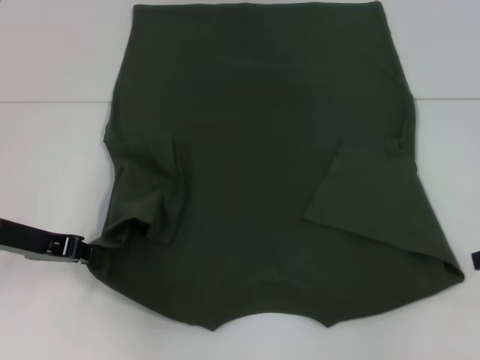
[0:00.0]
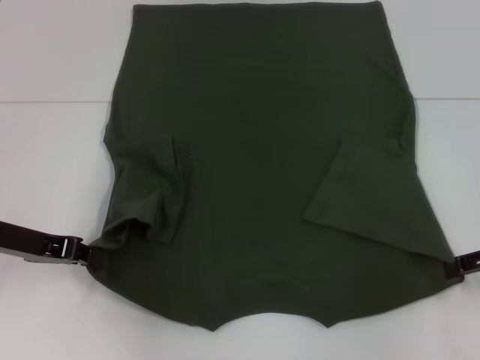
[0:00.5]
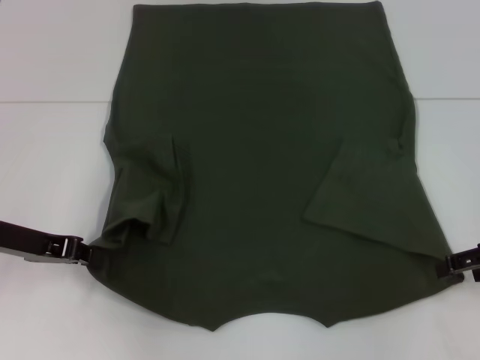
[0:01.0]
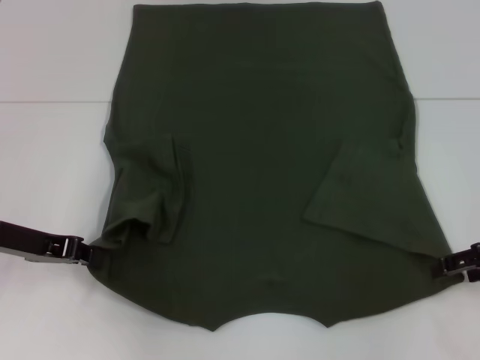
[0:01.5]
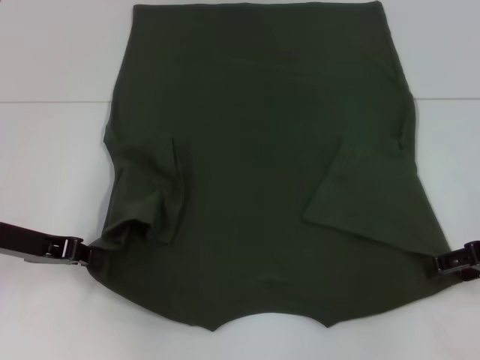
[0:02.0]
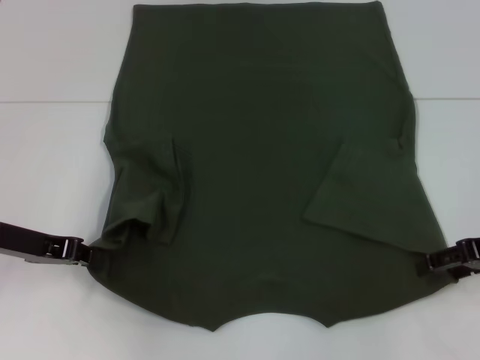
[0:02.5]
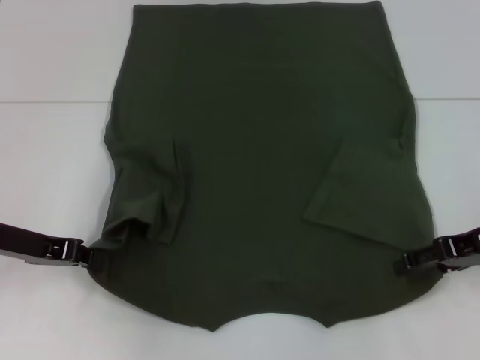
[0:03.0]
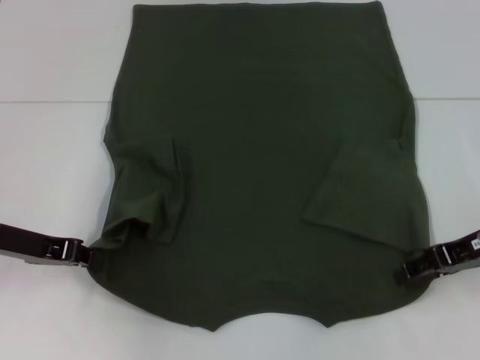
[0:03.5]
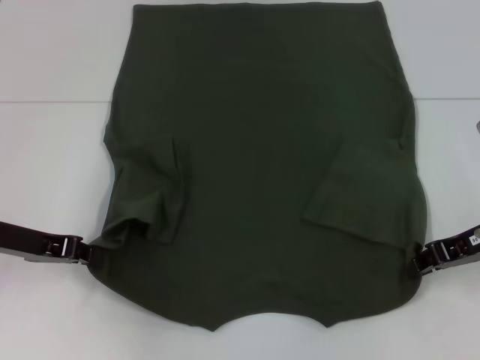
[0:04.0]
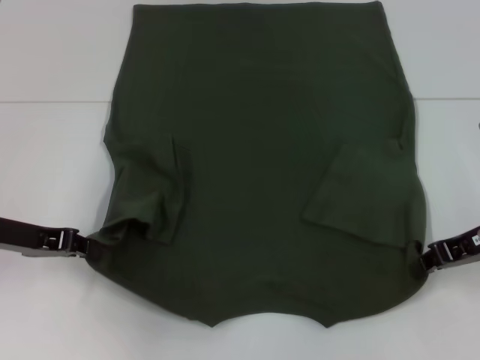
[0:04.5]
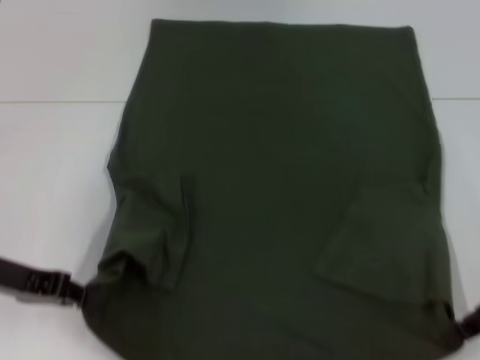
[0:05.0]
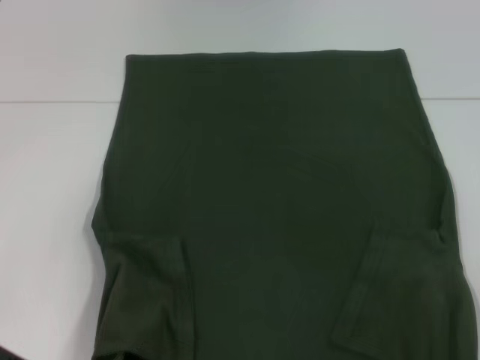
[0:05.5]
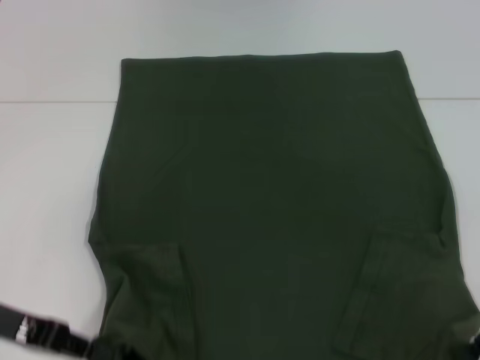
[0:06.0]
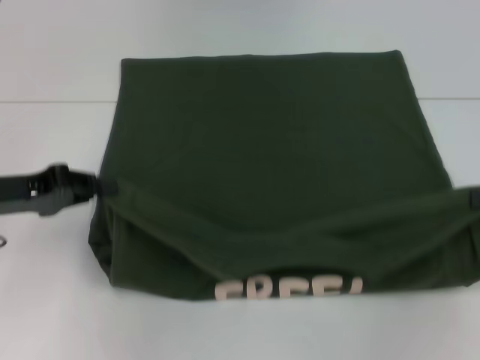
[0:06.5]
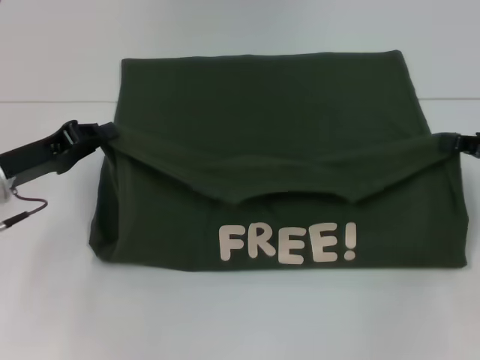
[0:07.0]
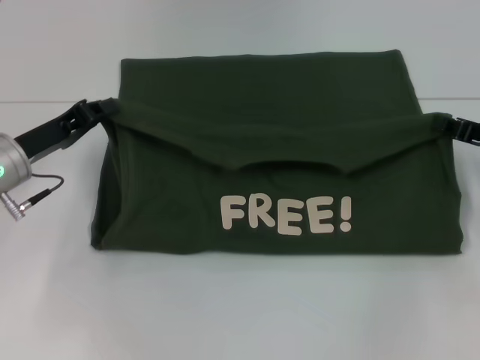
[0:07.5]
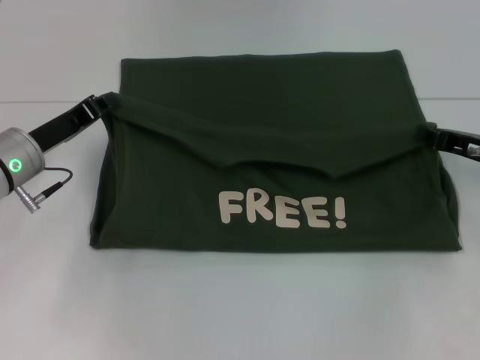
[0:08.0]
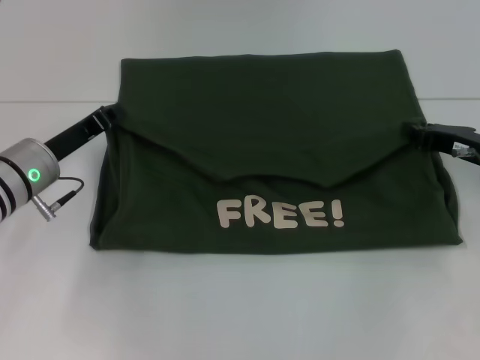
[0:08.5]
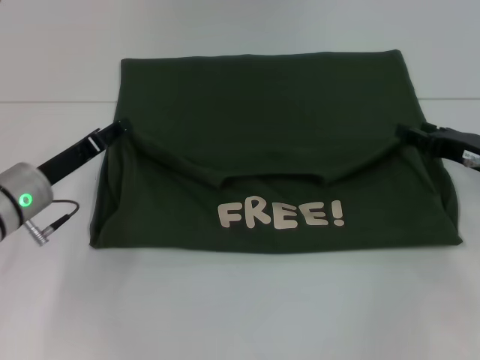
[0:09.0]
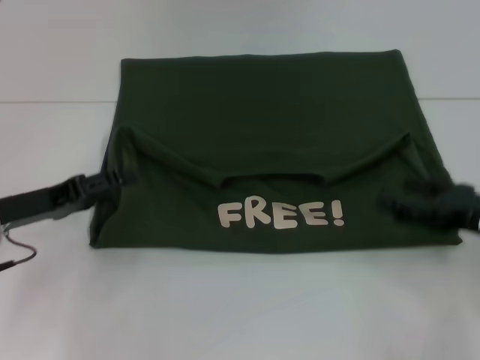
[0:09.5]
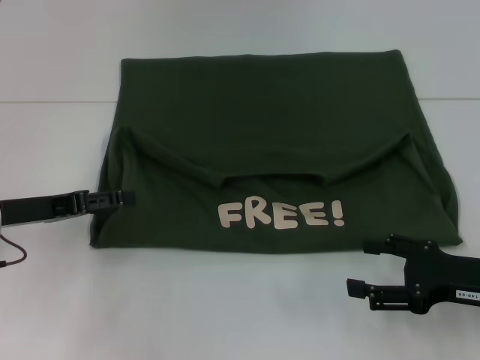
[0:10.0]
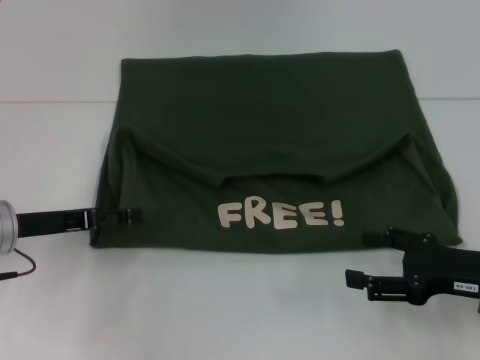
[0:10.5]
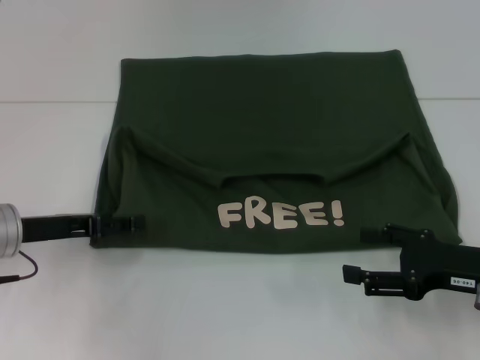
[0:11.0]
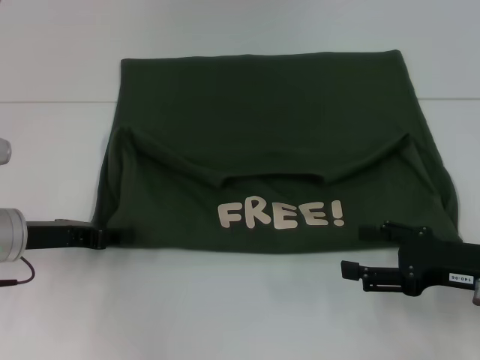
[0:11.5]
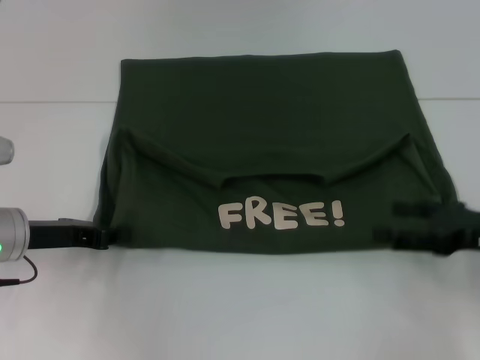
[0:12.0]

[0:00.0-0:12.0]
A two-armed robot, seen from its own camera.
Step, 0:00.0 to 0:03.5: Grab the bottom right corner with your right hand.
Step, 0:04.0 to 0:08.5: Fold the clothes with your left hand.
Step, 0:04.0 to 0:08.5: Fold the clothes with your right hand.
0:00.0 to 0:02.0: The right gripper changes place by some 5 cm.
0:02.0 to 0:04.0: The right gripper closes its fingers.
0:04.0 to 0:06.0: The grippers both shift backward by some 5 cm.
0:06.0 to 0:08.0: The grippers both shift forward by about 10 cm.
0:08.0 to 0:10.0: The left gripper shifts roughly 5 cm backward, and opens its fingers; the right gripper heads backward, covering approximately 10 cm, and opens up.
0:10.0 to 0:12.0: The left gripper closes up.

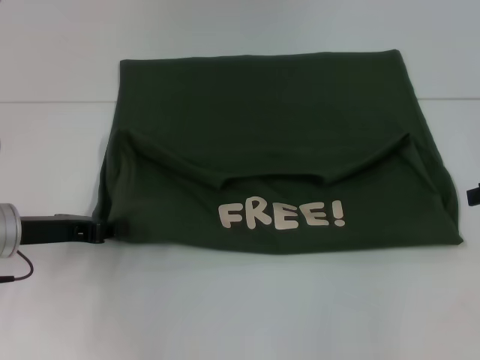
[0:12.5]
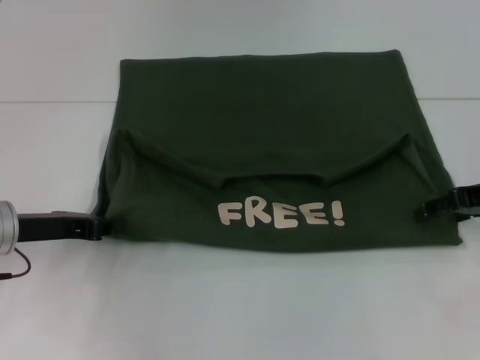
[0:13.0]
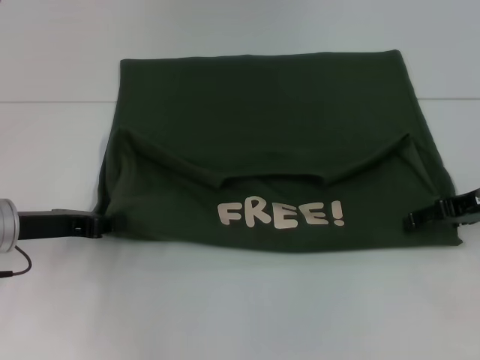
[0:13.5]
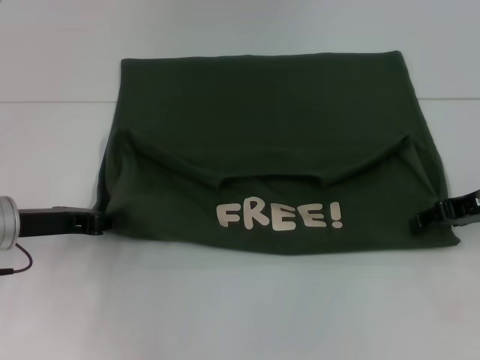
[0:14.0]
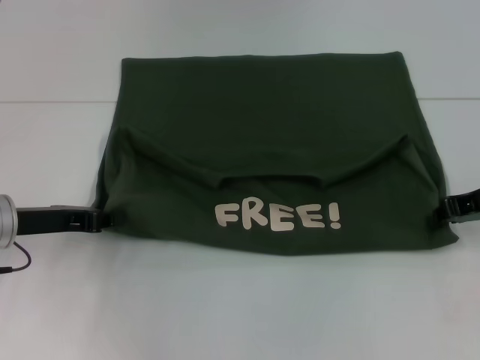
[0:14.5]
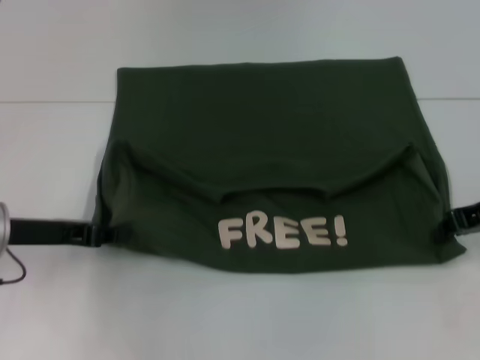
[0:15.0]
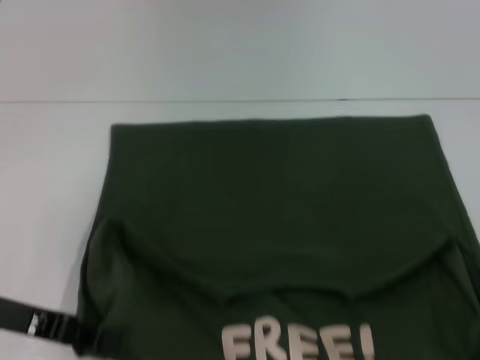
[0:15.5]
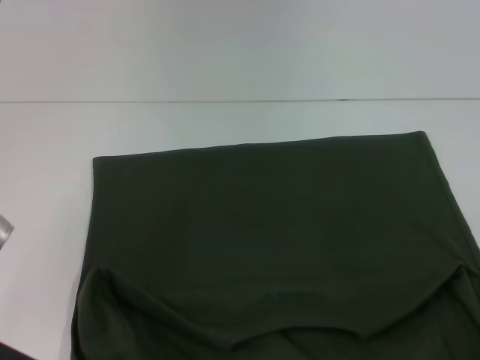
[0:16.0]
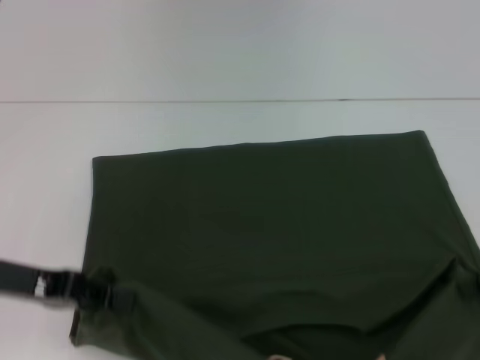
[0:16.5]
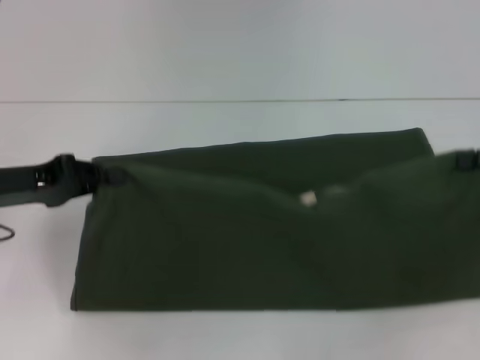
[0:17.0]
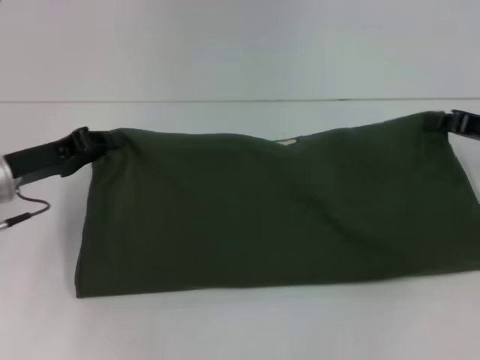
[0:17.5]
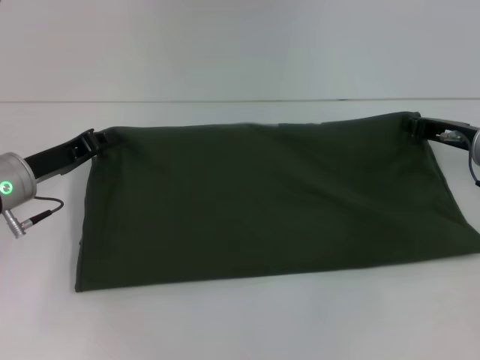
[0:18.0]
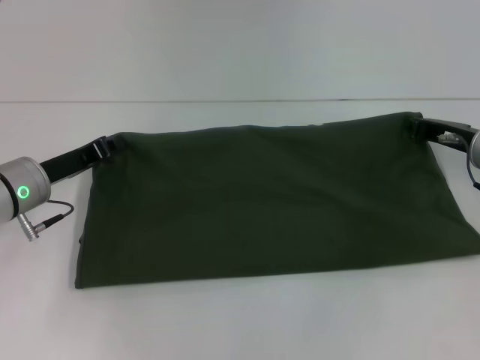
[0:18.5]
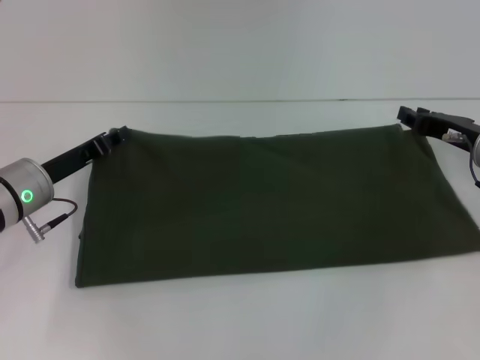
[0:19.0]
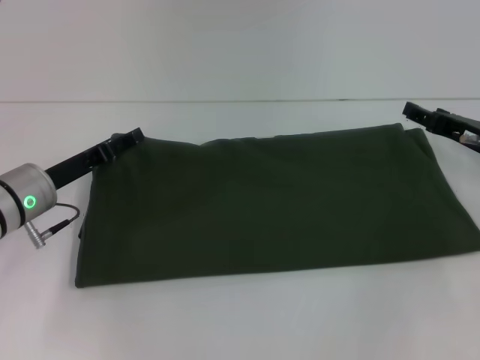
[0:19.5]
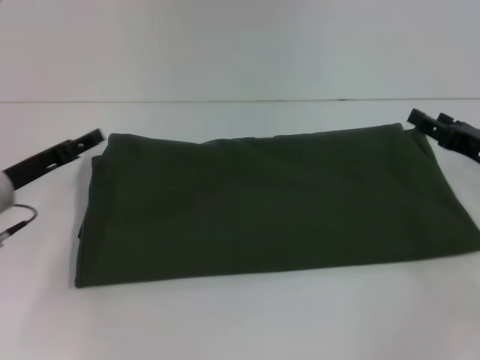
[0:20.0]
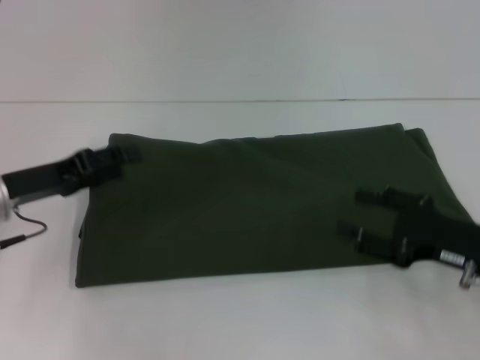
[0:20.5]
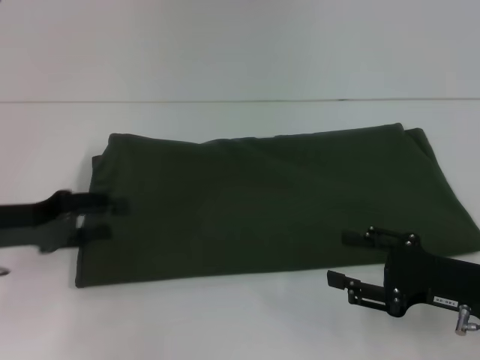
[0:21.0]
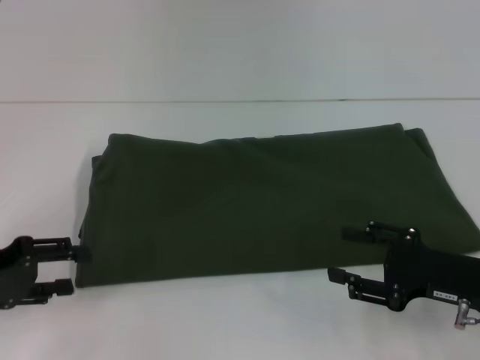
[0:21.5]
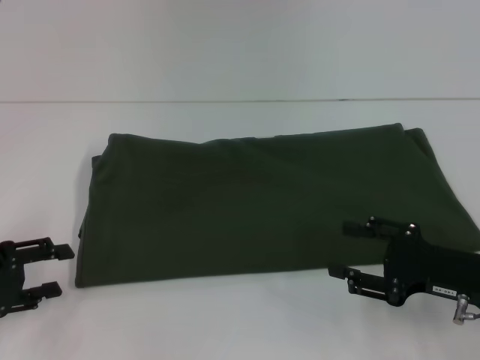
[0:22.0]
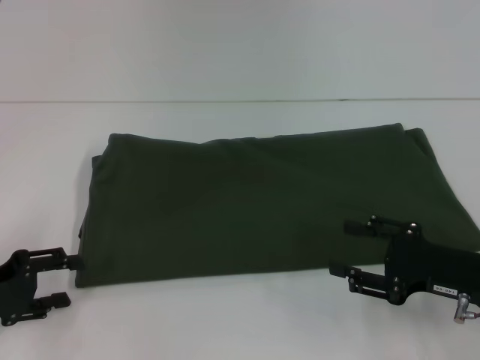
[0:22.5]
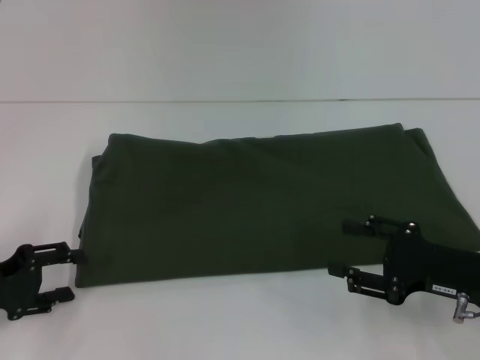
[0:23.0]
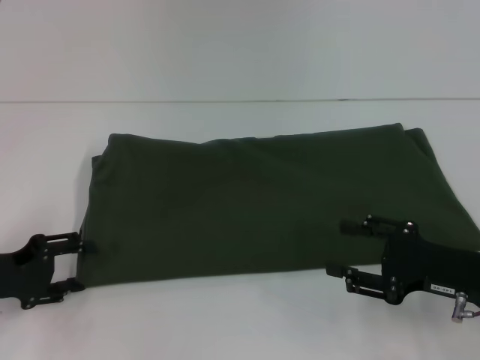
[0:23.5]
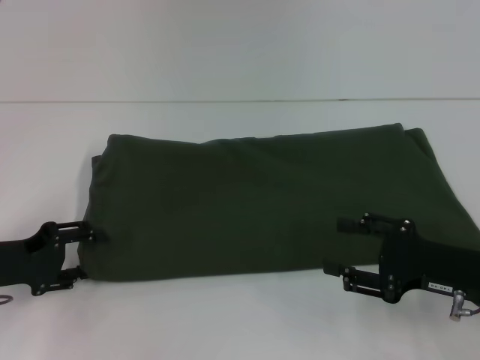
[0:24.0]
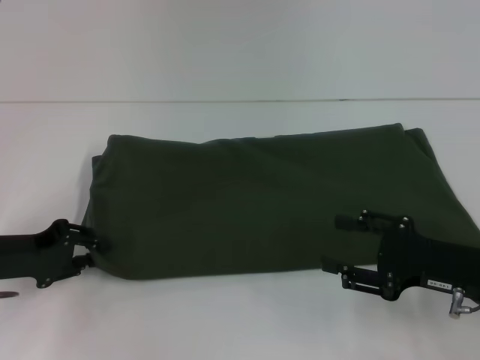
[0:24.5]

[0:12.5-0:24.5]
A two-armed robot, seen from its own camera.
Step, 0:12.5 to 0:15.5: Pull the clothes with your left hand.
Step, 0:12.5 to 0:15.5: Pull the clothes with your right hand.
Step, 0:16.0 to 0:19.5: Fold the clothes with your right hand.
0:12.5 to 0:14.5: The right gripper travels to the left by about 5 cm, and closes up.
0:14.5 to 0:16.5: The two grippers go some 5 cm backward.
0:16.5 to 0:18.5: The right gripper heads forward and to the left, covering about 10 cm. Meanwhile the left gripper shifts about 10 cm forward and downward.
0:18.5 to 0:20.5: The right gripper shifts some 10 cm backward, and opens. The left gripper shifts by some 5 cm, and opens its fingers.
0:20.5 to 0:22.5: The left gripper goes approximately 10 cm backward and to the left.
0:22.5 to 0:24.5: The left gripper shifts by some 5 cm.

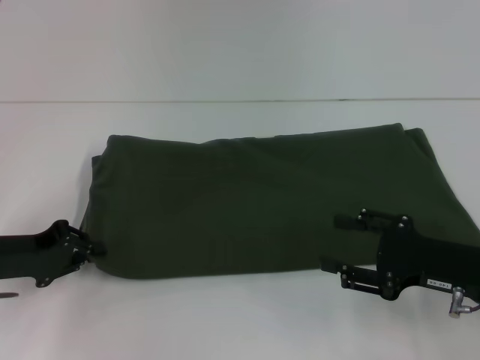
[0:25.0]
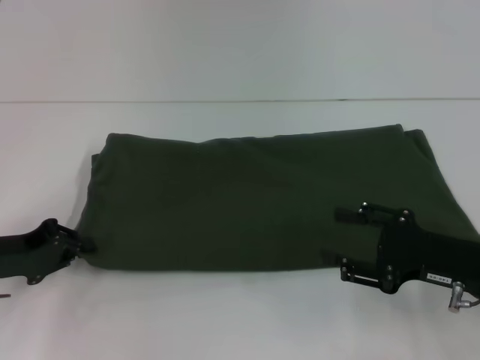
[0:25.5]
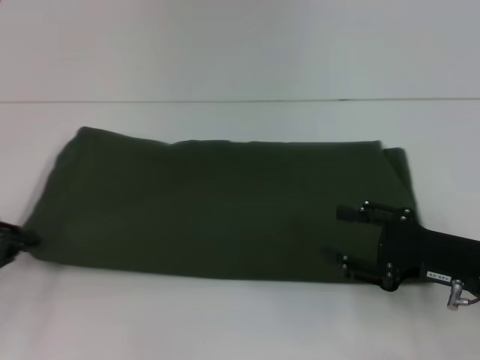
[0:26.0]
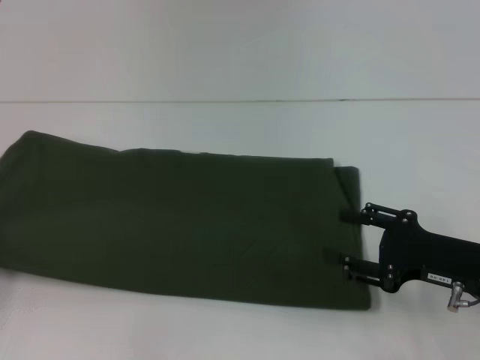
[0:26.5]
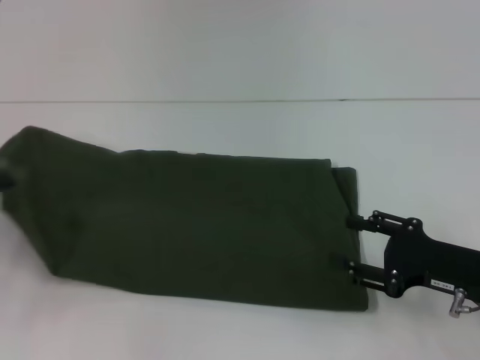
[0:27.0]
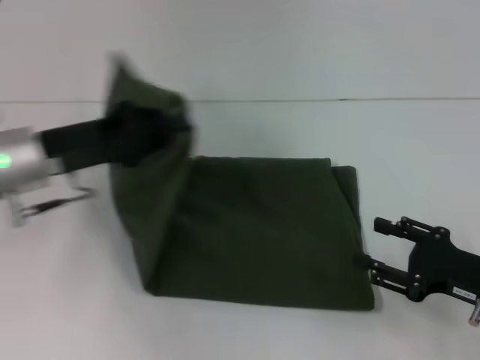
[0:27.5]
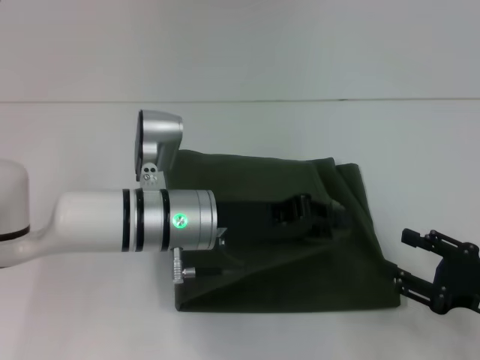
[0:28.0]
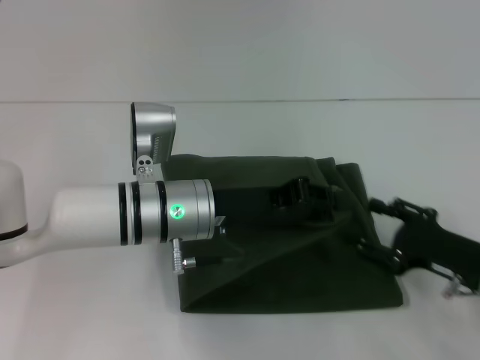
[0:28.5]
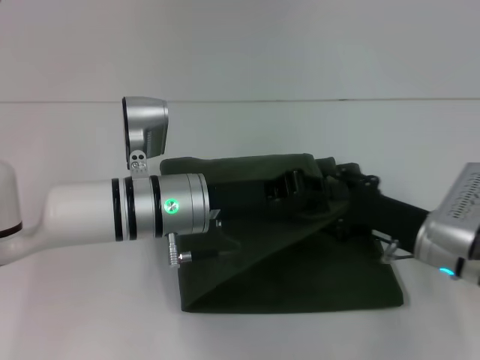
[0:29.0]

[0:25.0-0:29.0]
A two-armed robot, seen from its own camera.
0:25.0 to 0:27.0: The left gripper shifts approximately 5 cm to the left.
0:27.0 to 0:29.0: The right gripper goes approximately 5 cm to the left; the left gripper is displaced to the right by about 30 cm.
